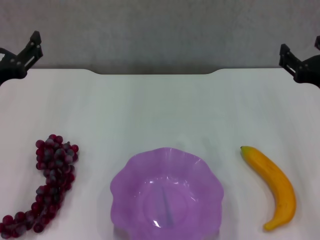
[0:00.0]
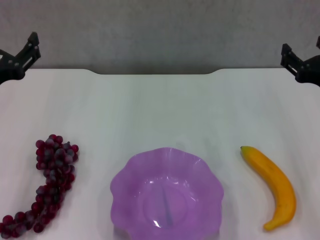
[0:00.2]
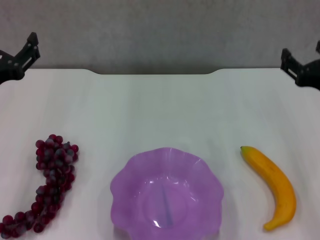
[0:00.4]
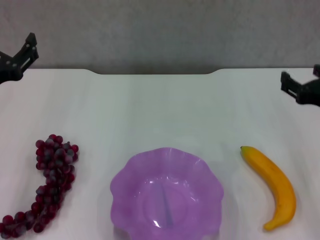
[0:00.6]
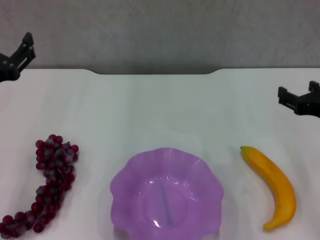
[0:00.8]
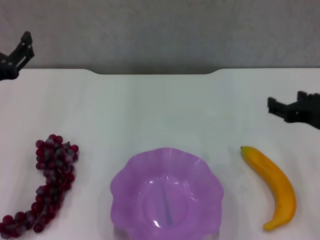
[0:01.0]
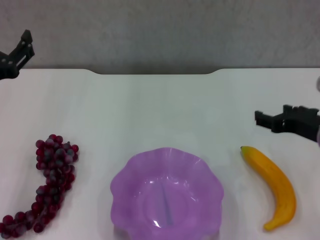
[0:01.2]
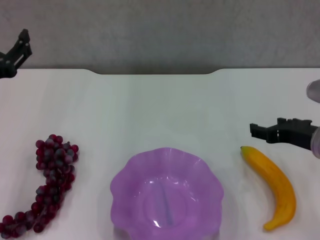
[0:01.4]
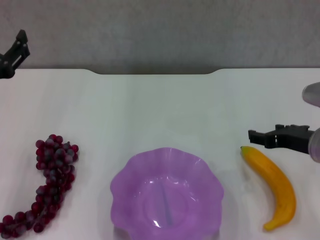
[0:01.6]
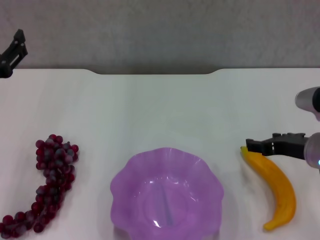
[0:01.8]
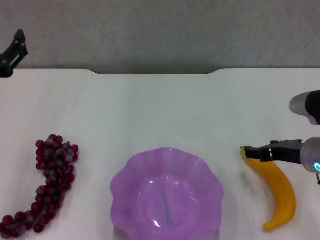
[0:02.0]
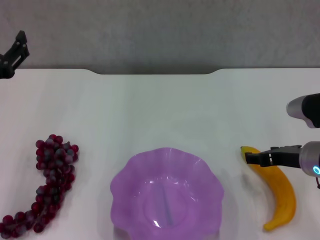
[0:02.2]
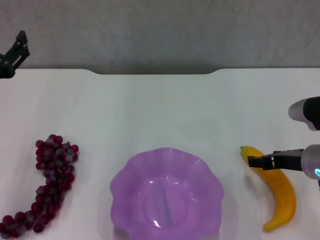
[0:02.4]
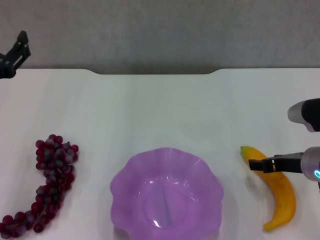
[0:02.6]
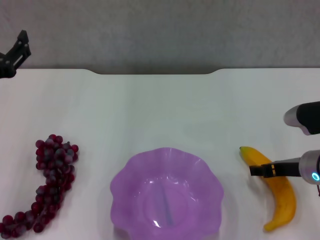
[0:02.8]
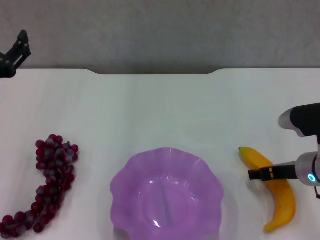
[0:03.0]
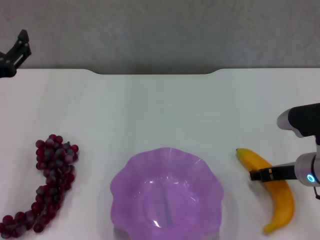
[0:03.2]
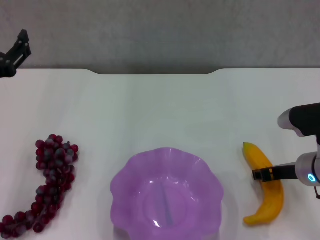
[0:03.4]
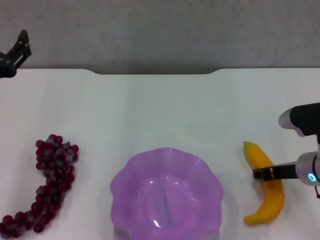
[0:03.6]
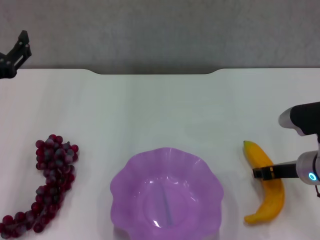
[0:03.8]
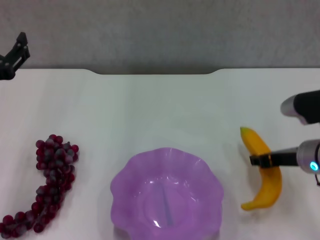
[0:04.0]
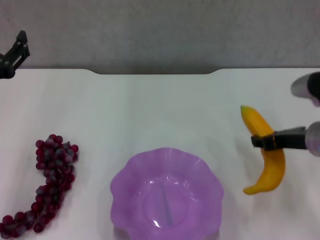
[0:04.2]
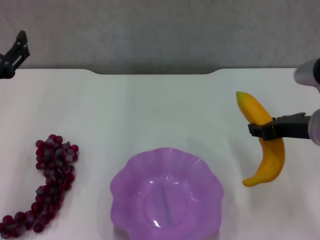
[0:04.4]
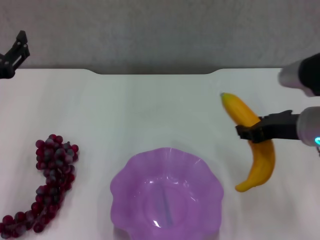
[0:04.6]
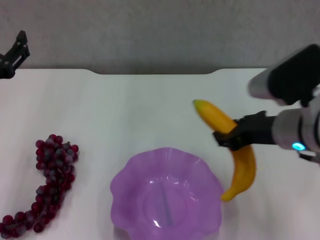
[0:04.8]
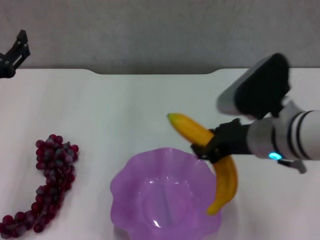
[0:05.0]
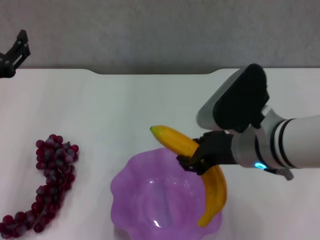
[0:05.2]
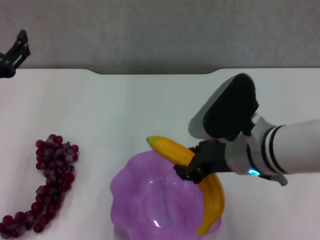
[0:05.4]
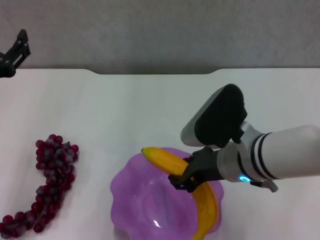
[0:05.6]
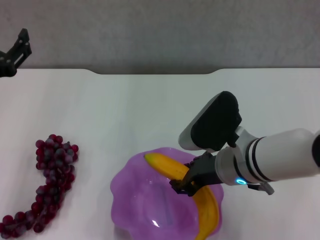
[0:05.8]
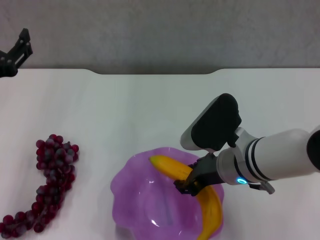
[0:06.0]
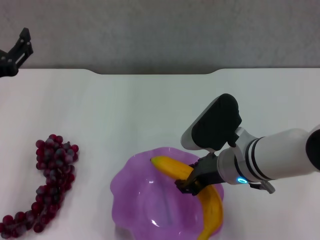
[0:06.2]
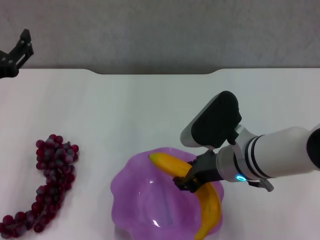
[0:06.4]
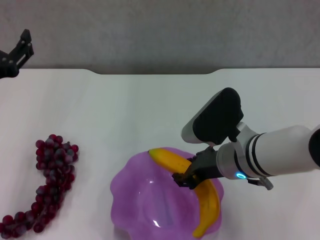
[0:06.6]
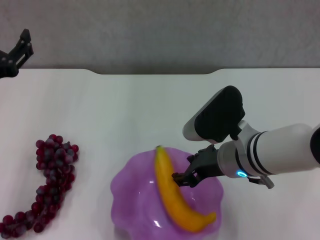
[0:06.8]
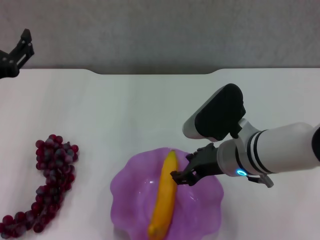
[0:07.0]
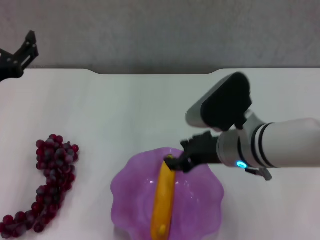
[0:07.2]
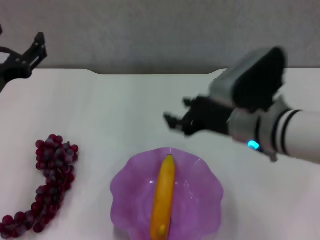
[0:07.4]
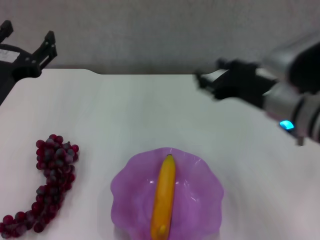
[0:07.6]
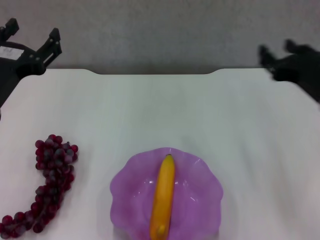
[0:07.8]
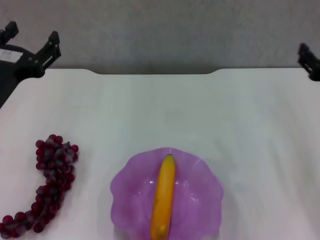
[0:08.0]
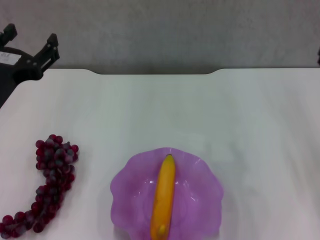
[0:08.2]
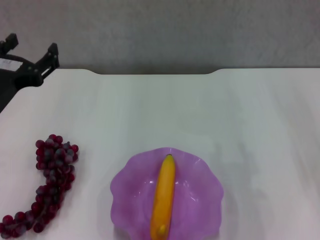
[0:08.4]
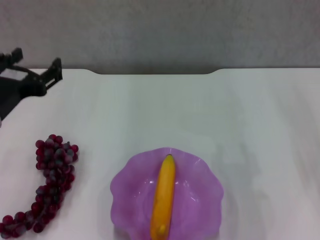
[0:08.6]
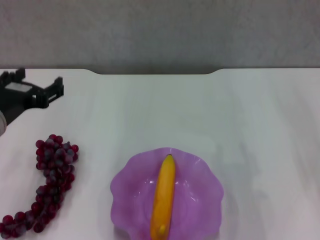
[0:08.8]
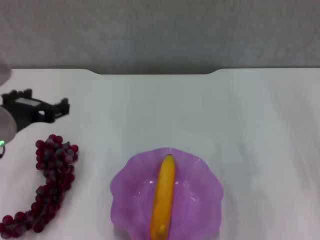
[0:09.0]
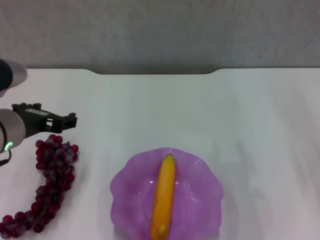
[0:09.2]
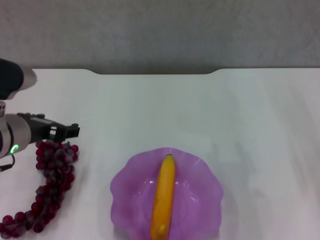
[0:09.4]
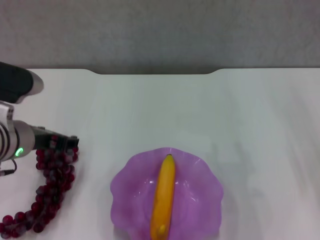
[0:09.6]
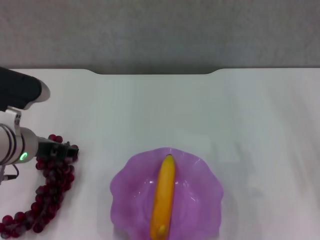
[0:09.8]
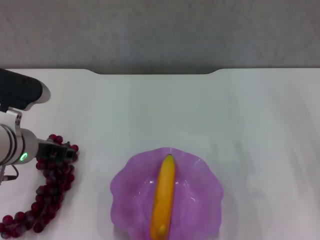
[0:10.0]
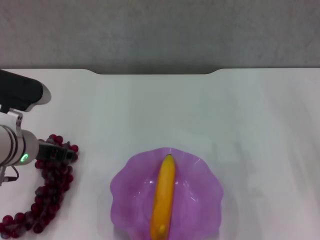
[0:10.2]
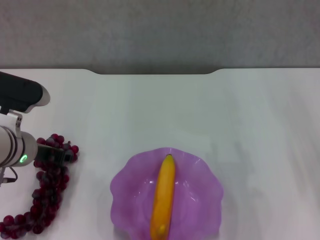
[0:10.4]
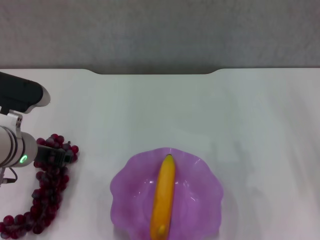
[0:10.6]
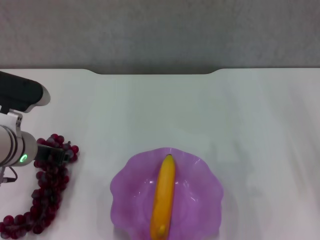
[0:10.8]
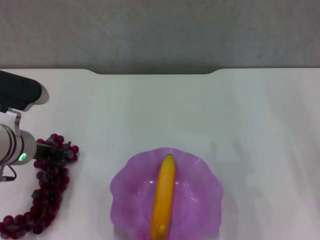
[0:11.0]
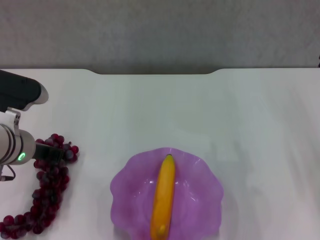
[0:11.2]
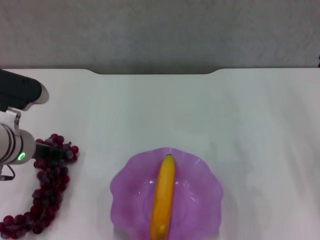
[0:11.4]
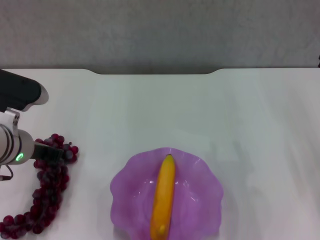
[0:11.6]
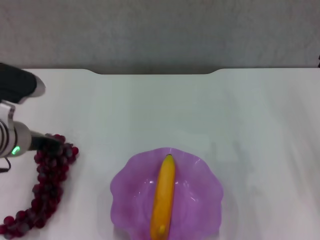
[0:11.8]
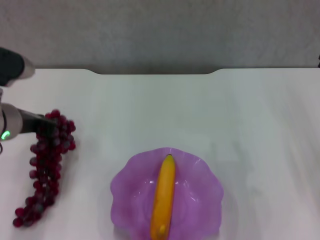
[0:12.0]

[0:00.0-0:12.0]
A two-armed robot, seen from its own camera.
Step, 0:00.0 to 0:03.4: Grasp the banana with right gripper.
Step, 0:03.6 to 0:07.0: Place the banana in the purple plate with right gripper.
Step, 0:07.2 to 0:11.4: Grasp the grape with left gripper.
0:00.0 to 0:01.6: The right gripper changes place by about 5 cm.
0:01.6 to 0:03.0: The right gripper travels downward by some 5 cm.
0:03.0 to 0:04.4: The right gripper heads upward, covering roughly 10 cm, and closes its fingers.
0:04.4 to 0:06.0: The right gripper travels to the left by about 10 cm.
0:06.0 to 0:07.6: The right gripper heads upward and to the right, covering roughly 10 cm, and opens.
0:07.6 to 0:09.0: The right gripper heads to the right, covering about 15 cm.
0:09.0 to 0:10.4: The left gripper is displaced downward by approximately 5 cm.
0:10.4 to 0:12.0: The left gripper closes its fingers.

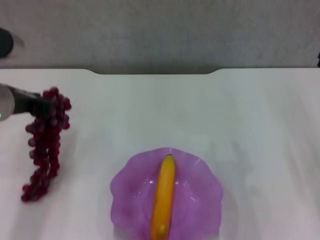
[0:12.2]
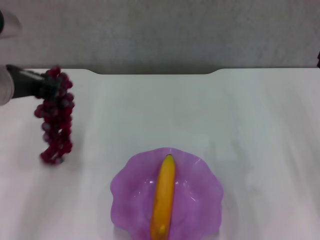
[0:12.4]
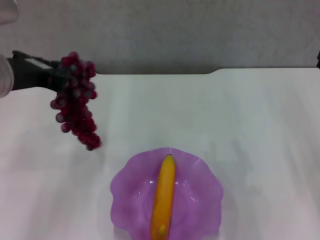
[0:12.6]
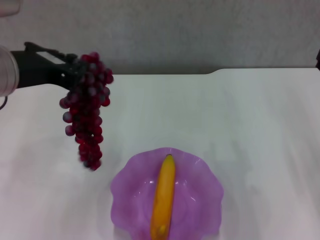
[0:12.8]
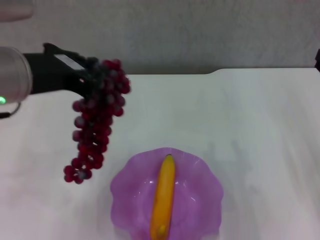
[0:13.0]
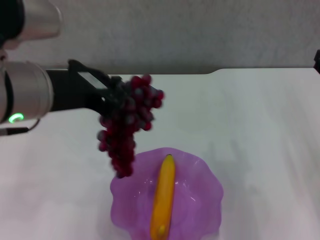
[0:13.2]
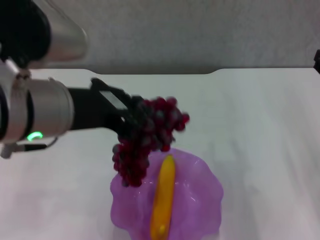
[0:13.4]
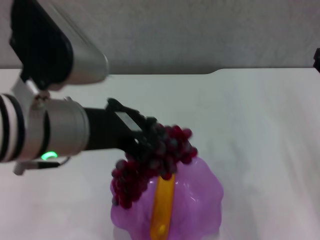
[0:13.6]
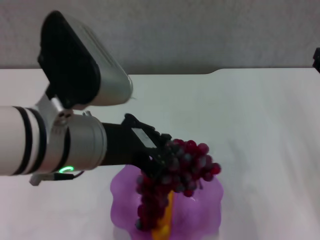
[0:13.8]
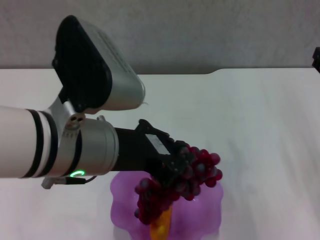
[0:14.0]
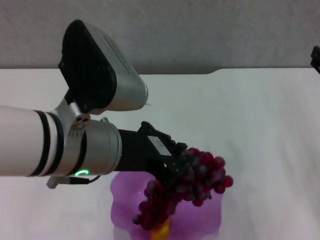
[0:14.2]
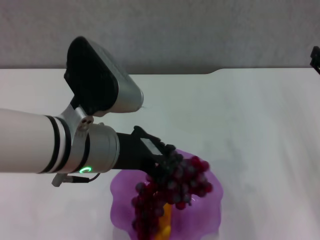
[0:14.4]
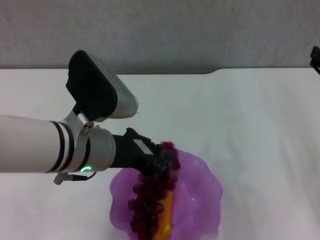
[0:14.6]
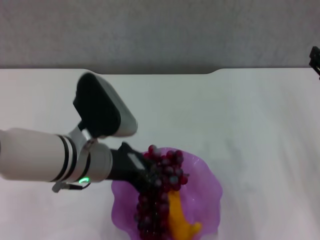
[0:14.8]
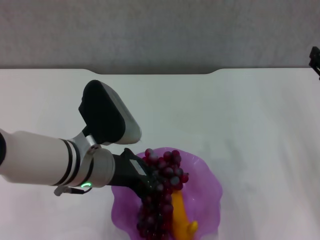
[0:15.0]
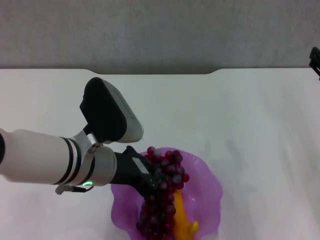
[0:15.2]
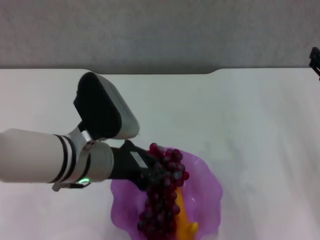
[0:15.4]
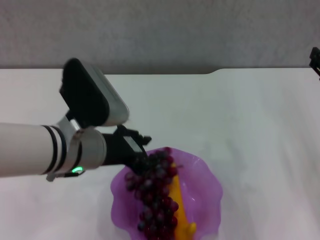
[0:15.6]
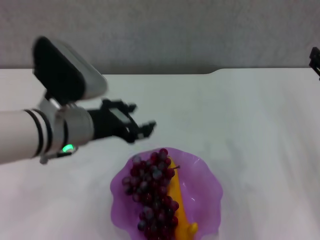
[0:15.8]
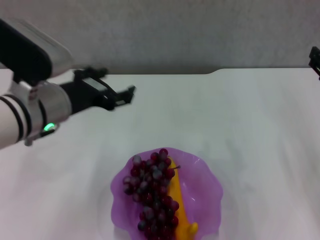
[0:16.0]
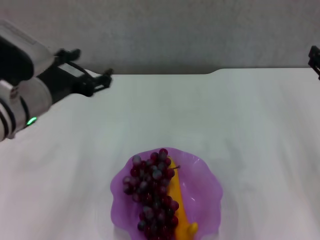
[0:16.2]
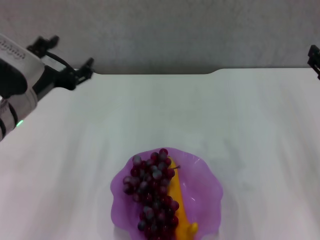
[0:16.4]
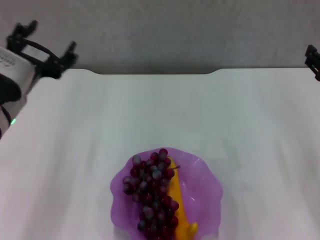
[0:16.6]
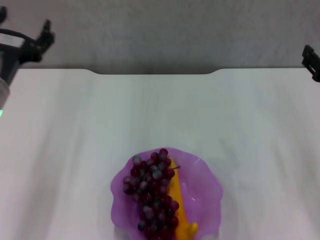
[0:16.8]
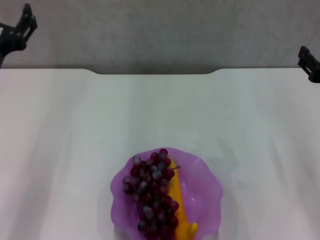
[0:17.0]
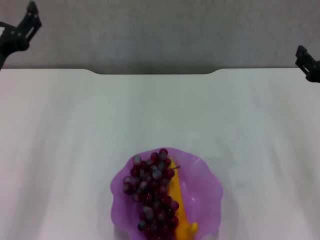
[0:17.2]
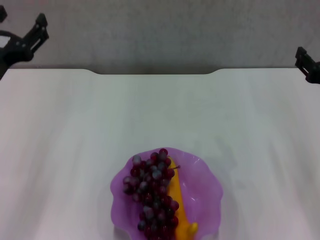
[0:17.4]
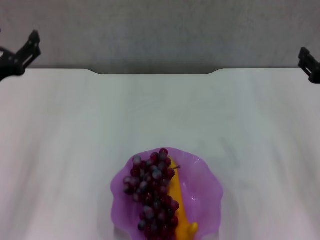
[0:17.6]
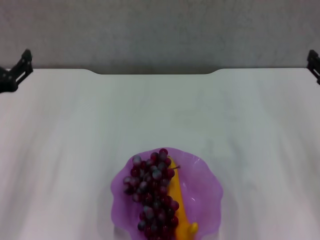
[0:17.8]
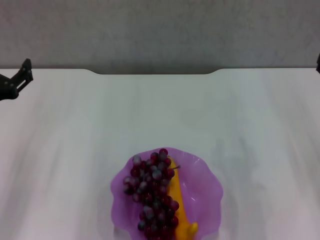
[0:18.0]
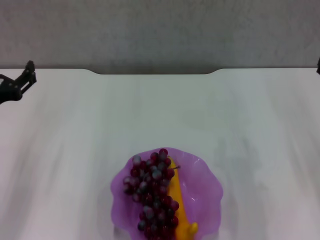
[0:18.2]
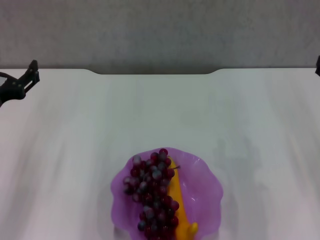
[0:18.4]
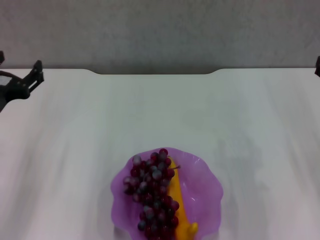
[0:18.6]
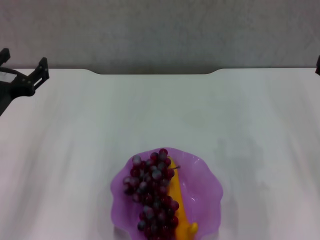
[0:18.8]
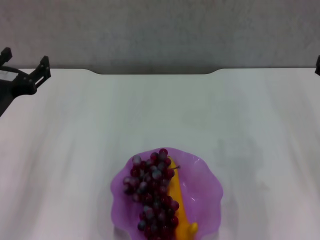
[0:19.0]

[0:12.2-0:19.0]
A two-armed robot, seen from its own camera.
Step, 0:12.2 to 0:15.6: Place the grape in the purple plate with left gripper.
0:12.2 to 0:13.6: The left gripper heads to the right, backward and upward, covering about 15 cm.
0:13.6 to 0:15.0: The left gripper travels downward and forward by some 15 cm.
0:15.0 to 0:16.2: The left gripper heads to the left and upward, covering some 10 cm, and opens its fingers.
0:16.2 to 0:17.6: The left gripper shifts roughly 10 cm to the left.
0:17.6 to 0:19.0: The right gripper opens its fingers.

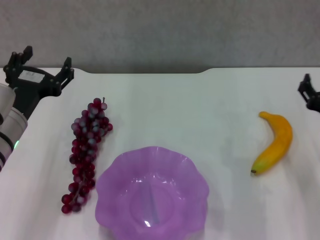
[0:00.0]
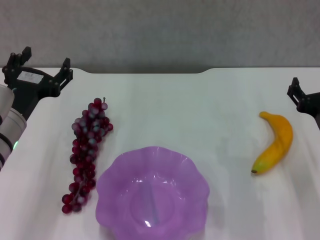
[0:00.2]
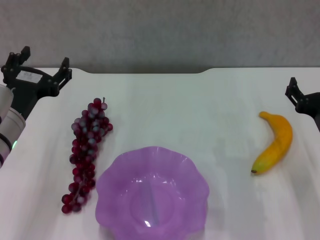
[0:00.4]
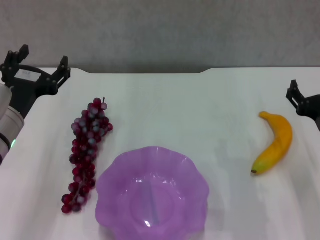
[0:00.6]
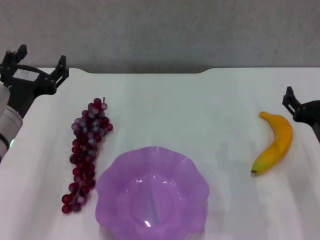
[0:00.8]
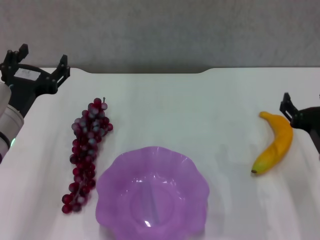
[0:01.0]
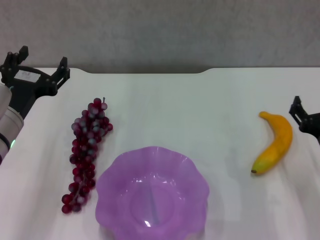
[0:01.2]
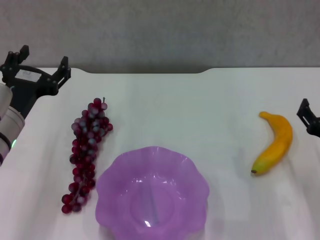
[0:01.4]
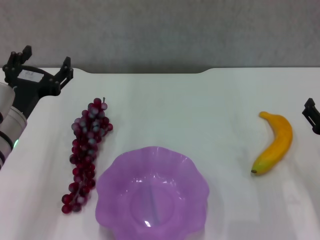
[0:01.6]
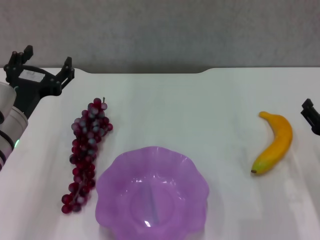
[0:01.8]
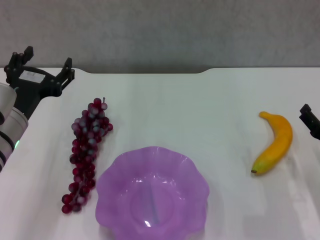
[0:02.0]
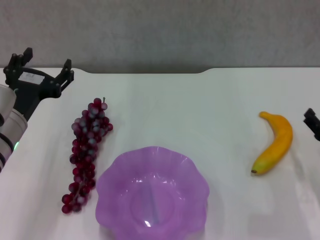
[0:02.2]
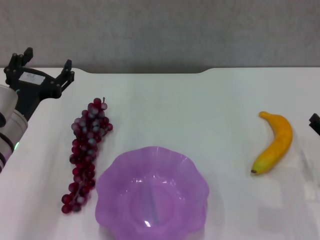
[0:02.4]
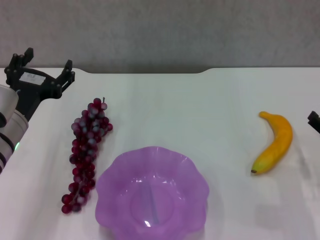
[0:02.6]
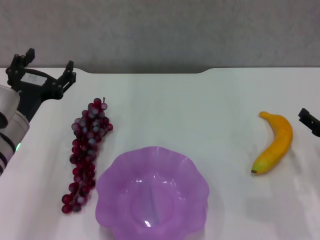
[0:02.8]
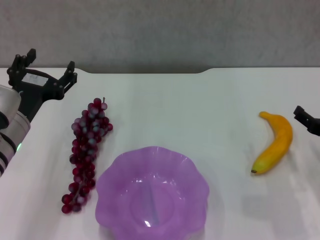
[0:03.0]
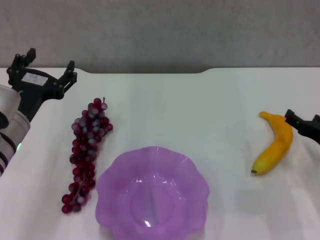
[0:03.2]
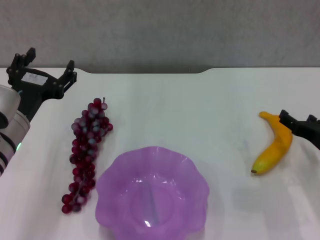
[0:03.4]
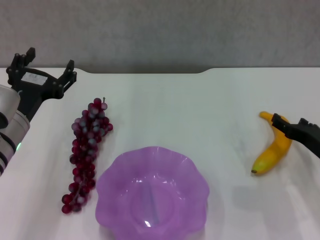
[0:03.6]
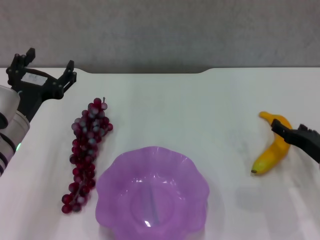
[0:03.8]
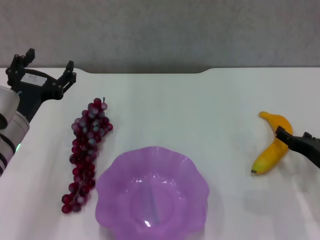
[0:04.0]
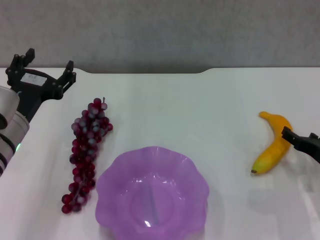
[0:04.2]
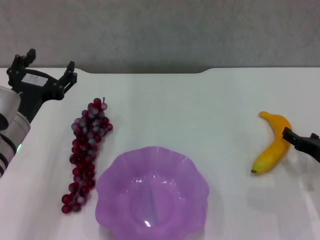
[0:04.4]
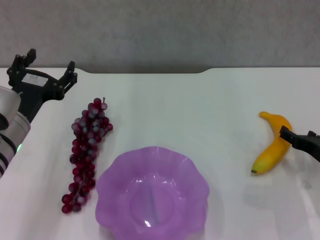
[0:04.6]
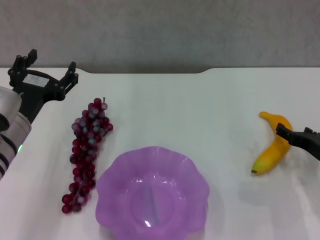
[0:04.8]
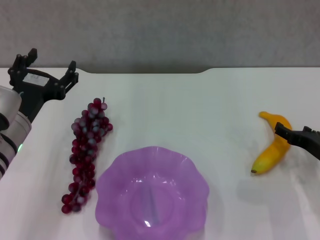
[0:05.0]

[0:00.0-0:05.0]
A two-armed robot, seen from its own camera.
0:00.0 to 0:01.6: The right gripper shifts by some 5 cm.
0:01.6 to 0:03.4: The grippers make only small movements.
0:03.4 to 0:05.0: The grippers stay close to where they were, moving slightly.
